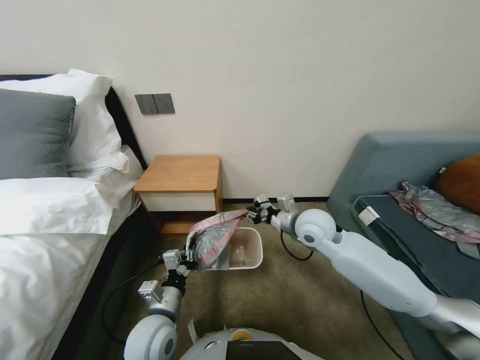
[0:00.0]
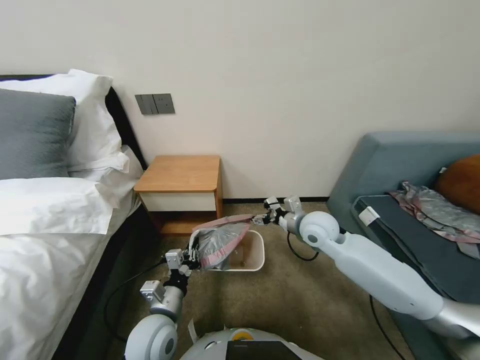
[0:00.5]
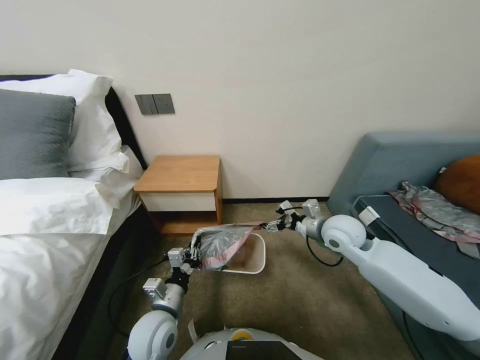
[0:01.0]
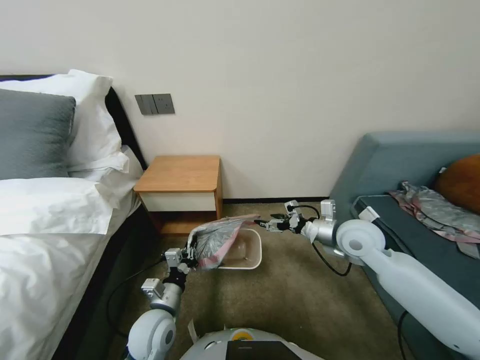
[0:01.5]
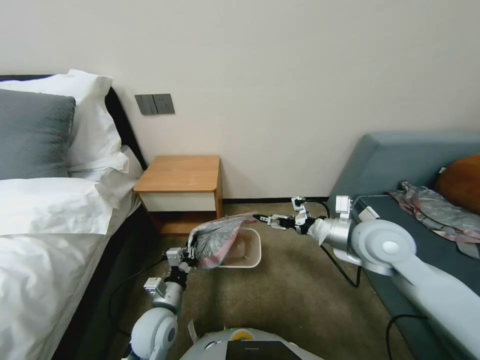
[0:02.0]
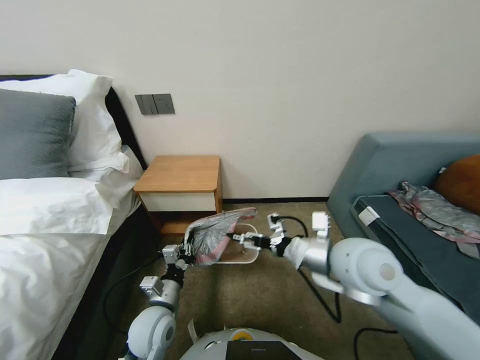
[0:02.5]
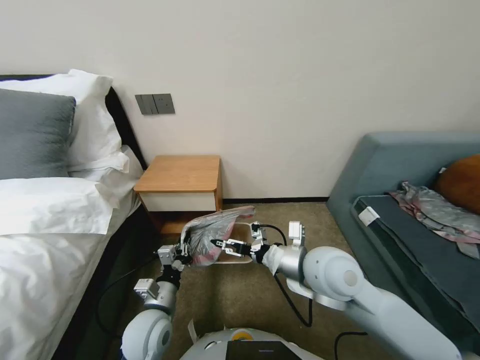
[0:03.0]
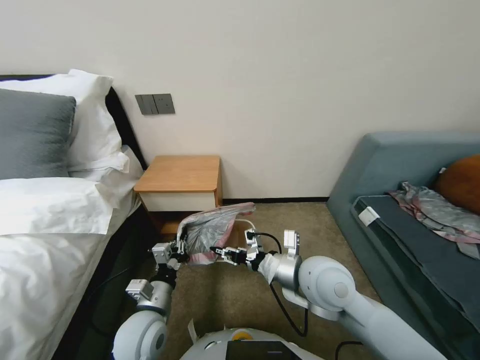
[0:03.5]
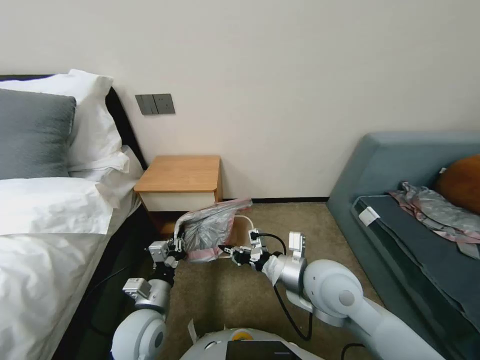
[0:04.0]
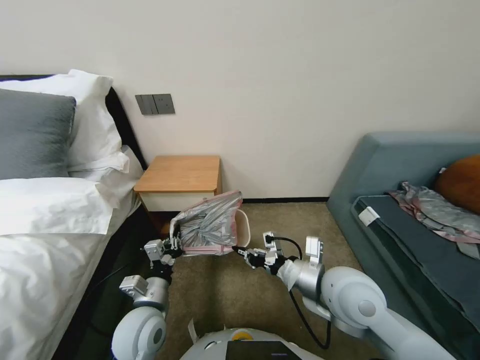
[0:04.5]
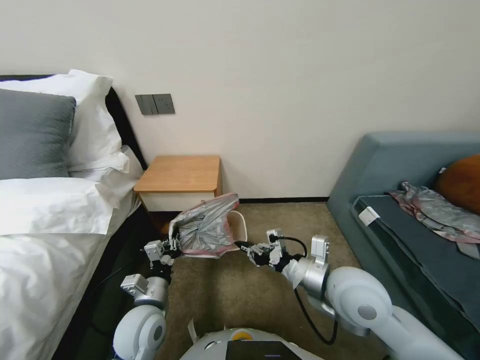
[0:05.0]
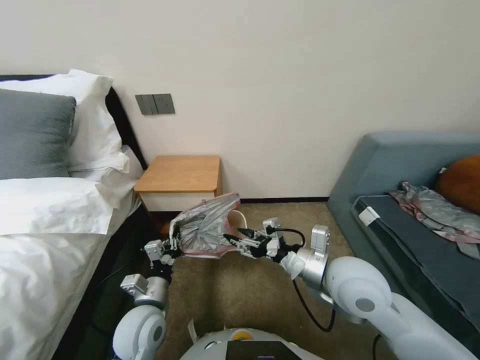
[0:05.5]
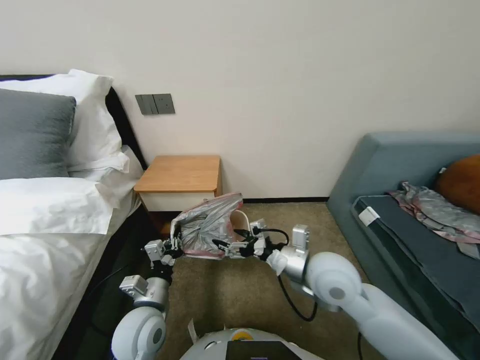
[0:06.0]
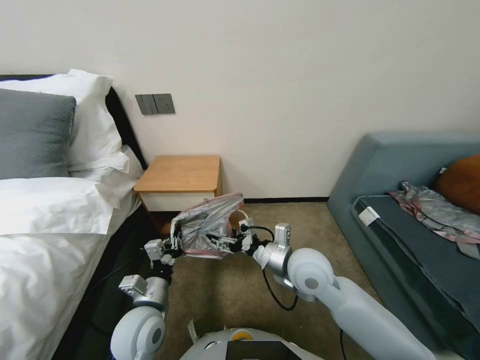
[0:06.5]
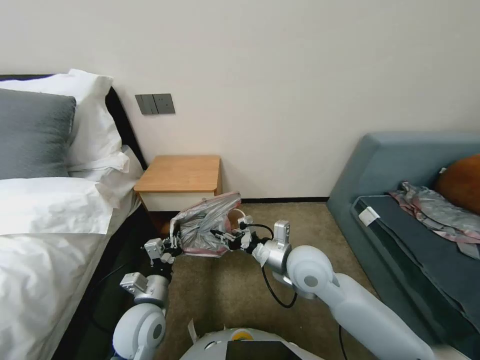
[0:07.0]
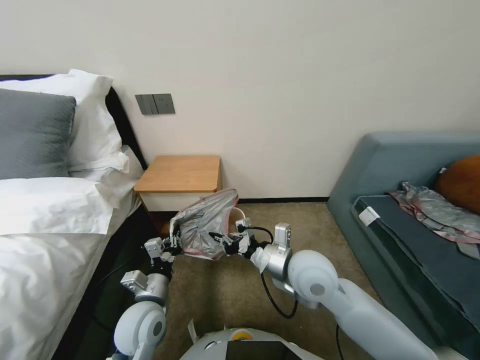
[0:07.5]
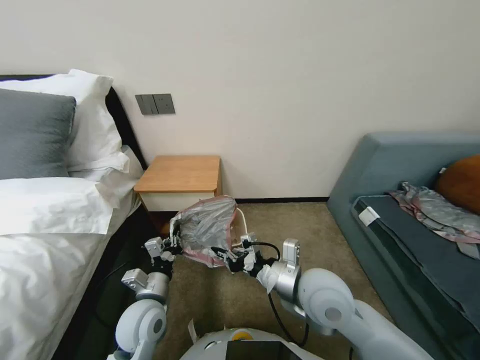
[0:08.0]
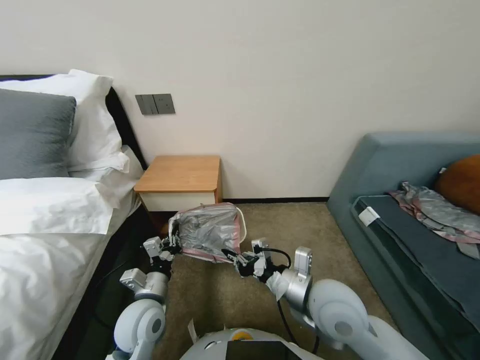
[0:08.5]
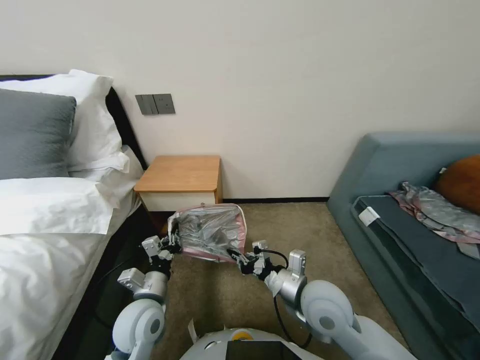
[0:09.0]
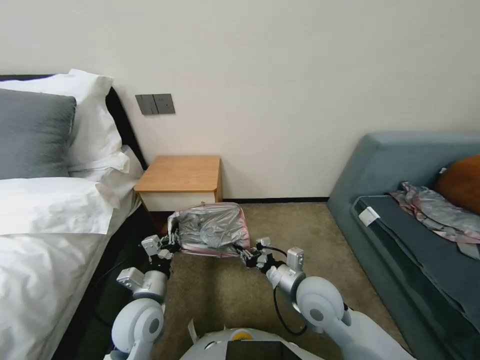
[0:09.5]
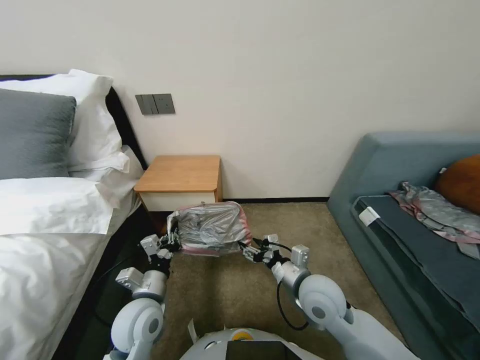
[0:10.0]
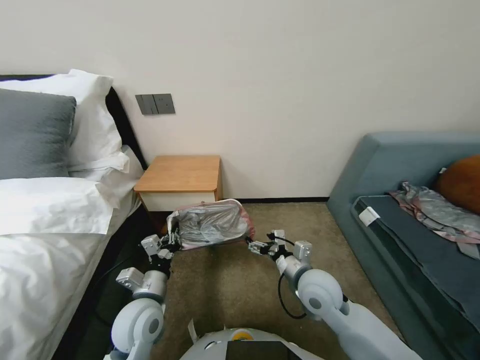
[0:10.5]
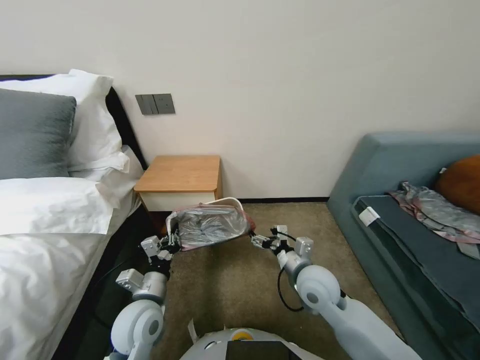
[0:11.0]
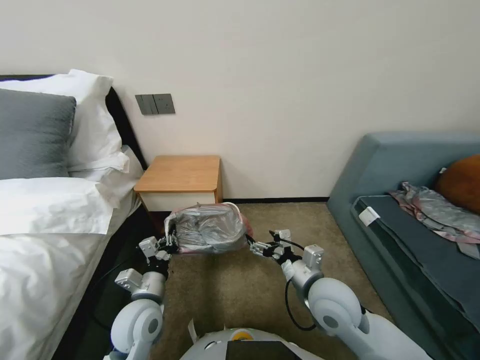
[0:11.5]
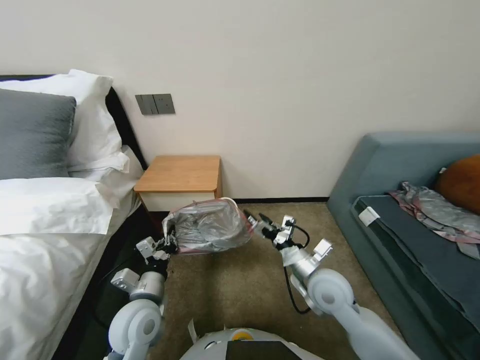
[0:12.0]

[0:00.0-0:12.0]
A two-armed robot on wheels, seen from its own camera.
Task of the whole recording: Pick up the garbage bag from the table and place it over the trash can.
0:00.0 to 0:02.0: The right gripper moves to the right and backward, roughly 10 cm, and opens its fingers.
0:02.0 to 0:04.0: The right gripper goes roughly 15 cm to the left and backward, and closes up.
0:04.0 to 0:06.0: The right gripper opens up.
0:06.0 to 0:08.0: The right gripper closes up.
0:08.0 to 0:10.0: The right gripper shifts approximately 5 cm downward, and opens up.
0:10.0 to 0:12.0: The right gripper opens its fingers.

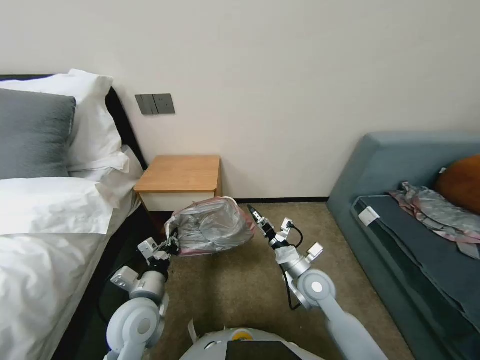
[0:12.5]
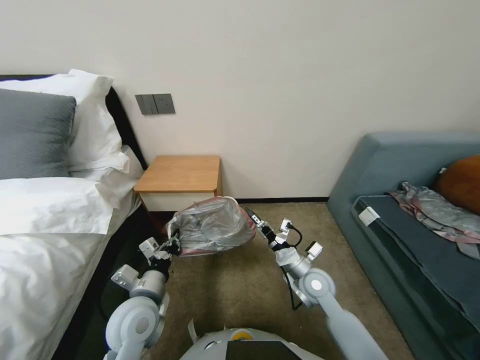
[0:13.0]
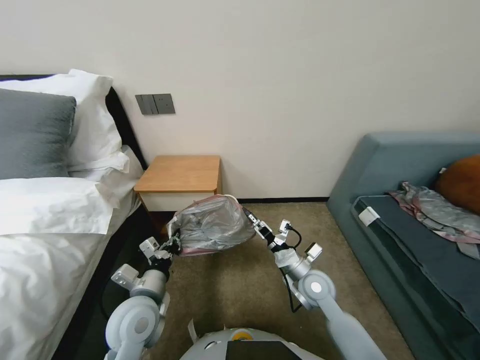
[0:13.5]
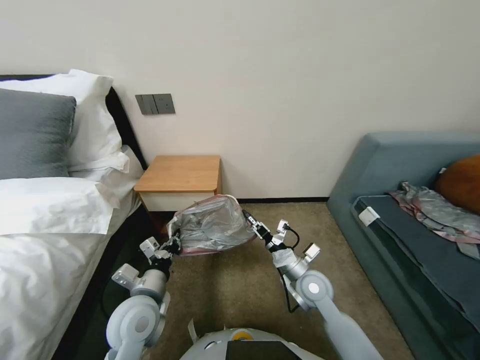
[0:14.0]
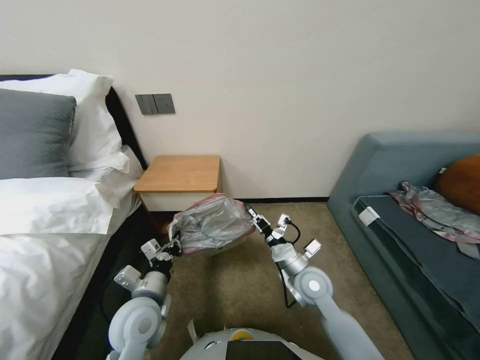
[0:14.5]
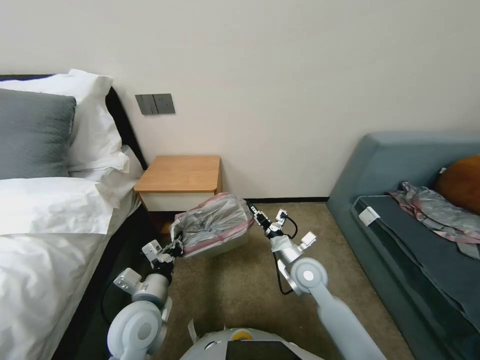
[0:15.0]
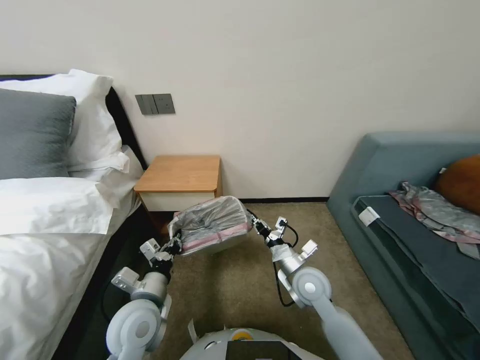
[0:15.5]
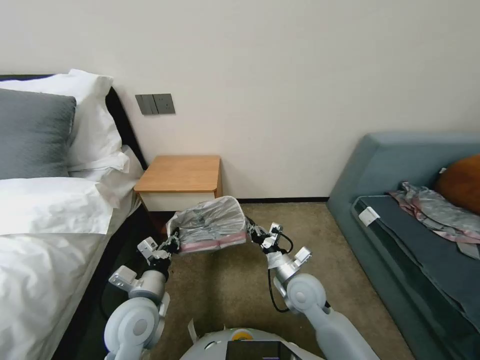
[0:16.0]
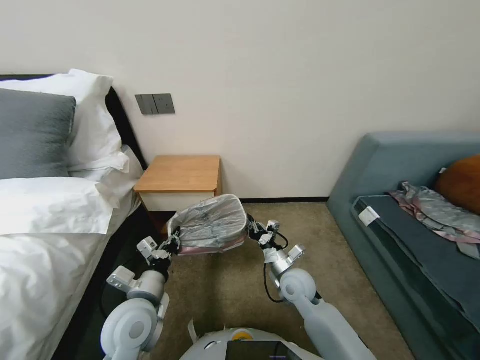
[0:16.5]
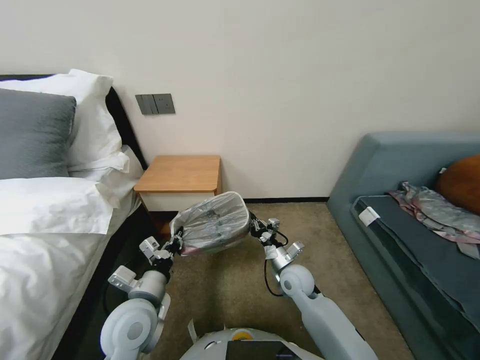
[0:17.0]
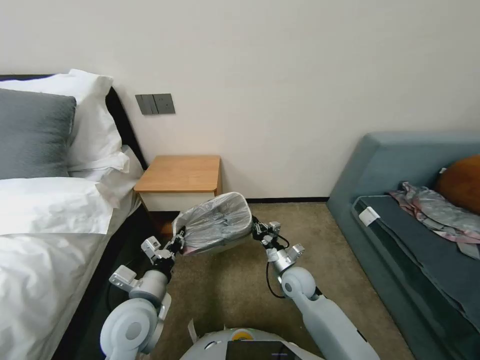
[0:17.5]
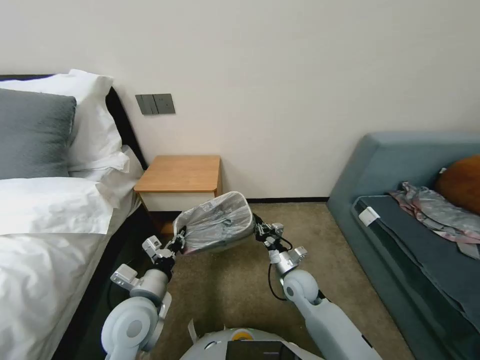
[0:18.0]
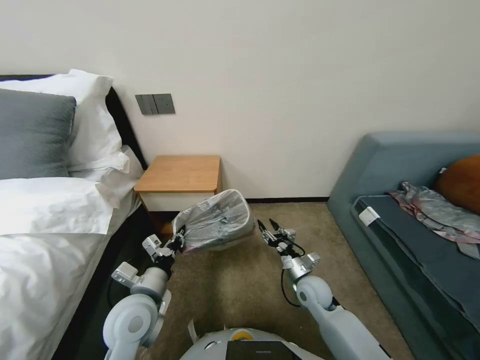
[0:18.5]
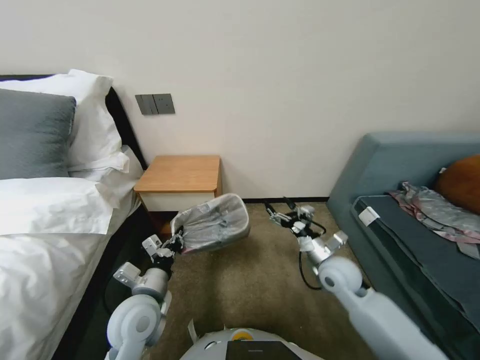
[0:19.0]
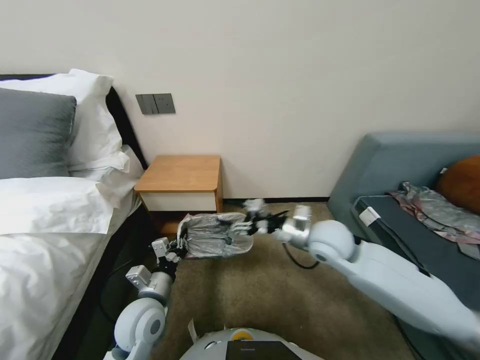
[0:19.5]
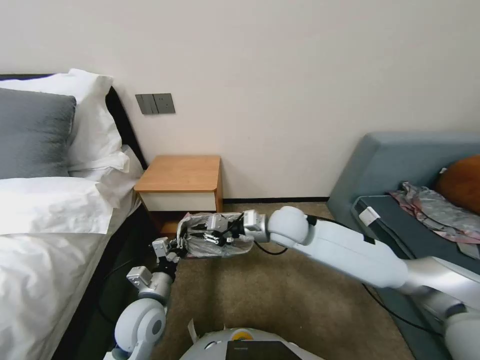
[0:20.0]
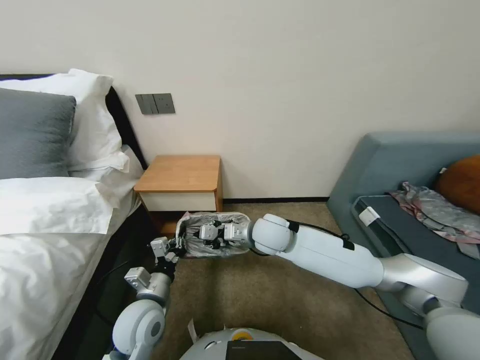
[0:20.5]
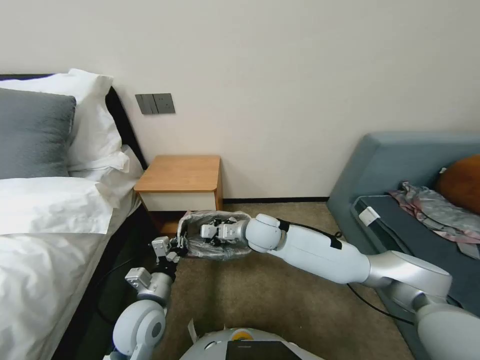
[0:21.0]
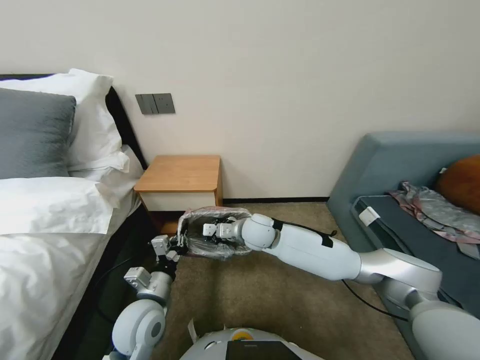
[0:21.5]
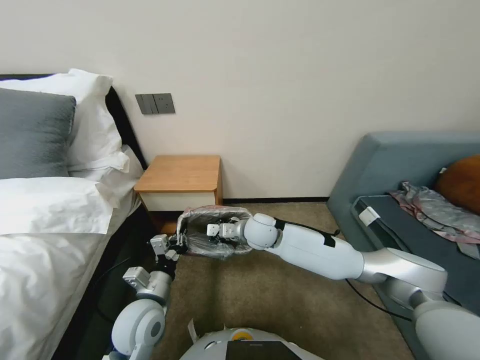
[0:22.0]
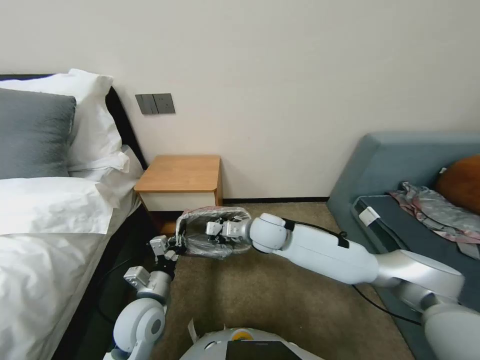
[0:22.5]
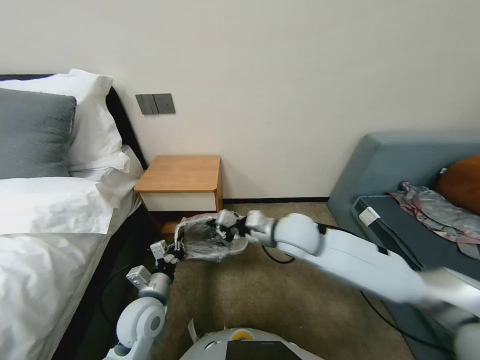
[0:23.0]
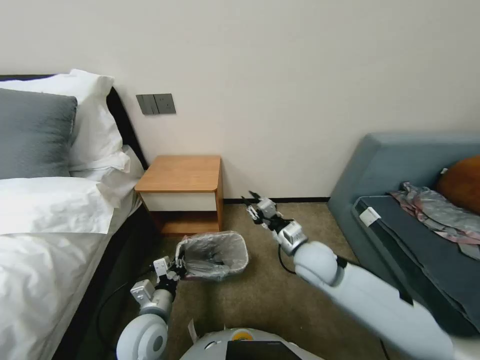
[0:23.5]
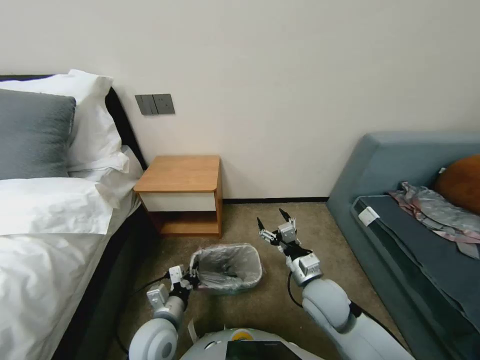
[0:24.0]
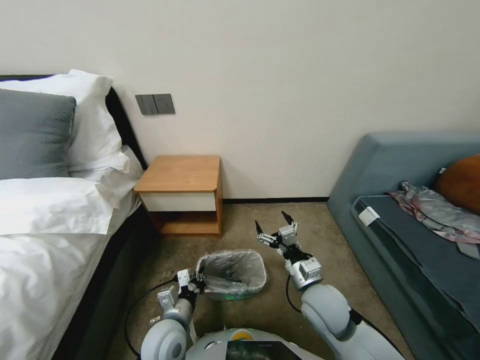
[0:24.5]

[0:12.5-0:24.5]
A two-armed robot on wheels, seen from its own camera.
Task of the whole recording: Pick up the garbage bag from the table and place it over the trash can.
0:12.5 to 0:14.5: The right gripper closes.
0:16.5 to 0:18.5: The right gripper travels to the right by some 5 cm, and opens up.
0:18.5 to 0:20.5: The right gripper travels upward and to the left by approximately 25 cm, and closes its fingers.
0:20.5 to 0:22.5: There are only small adjustments of the grippers.
0:22.5 to 0:24.5: The right gripper travels backward, to the right and downward by some 20 cm, and opens up. The left gripper travels downward by about 5 cm.

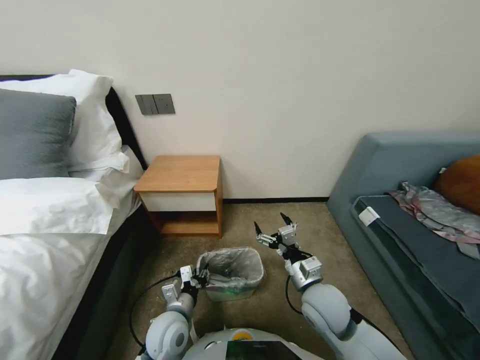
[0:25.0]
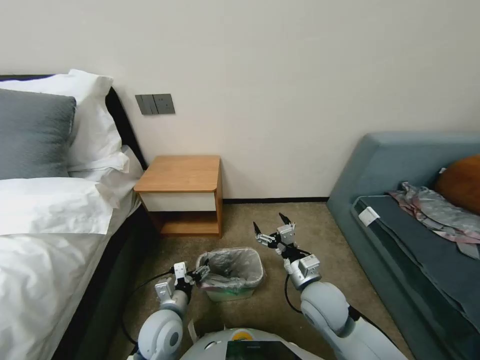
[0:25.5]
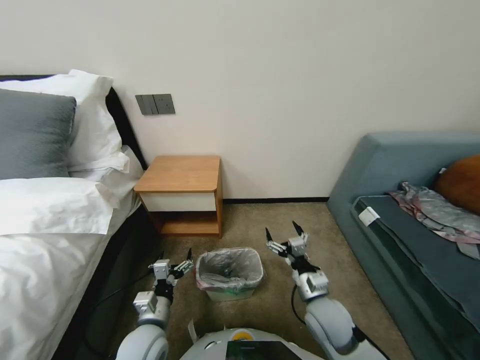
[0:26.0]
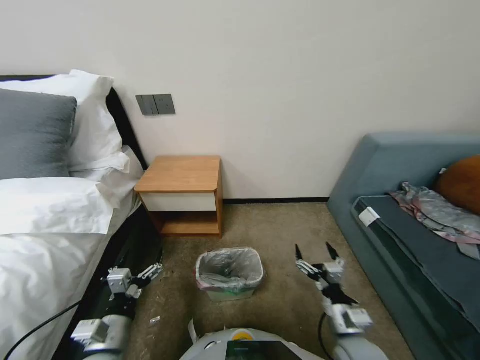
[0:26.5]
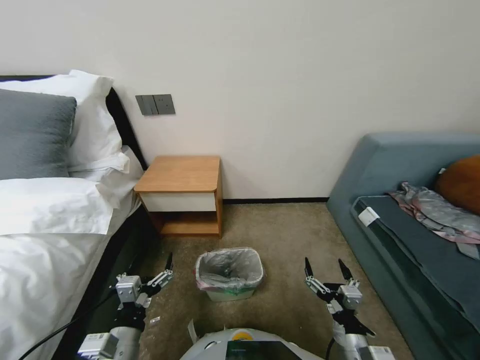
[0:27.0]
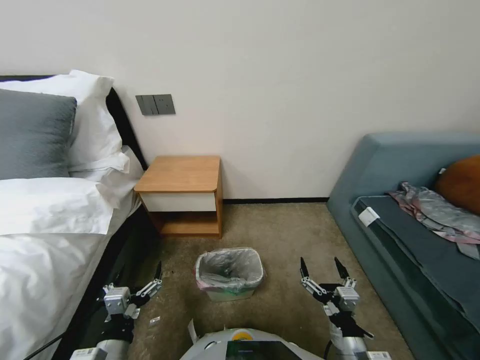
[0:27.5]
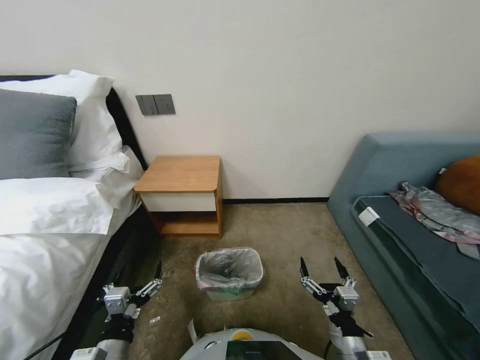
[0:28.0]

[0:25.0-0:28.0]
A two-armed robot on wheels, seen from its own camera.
Task of the whole recording: Pick up the garbage bag from the table and place it over the trash can.
0:25.0 to 0:26.5: The left gripper heads to the left, backward and upward, covering about 15 cm, and opens. The right gripper heads backward, downward and to the right, covering approximately 10 cm.
0:26.5 to 0:28.0: Both grippers move backward, some 5 cm.
